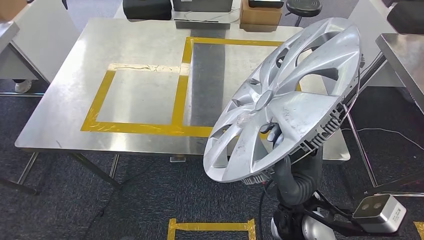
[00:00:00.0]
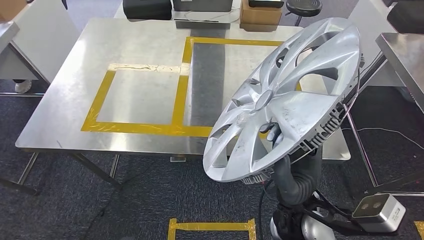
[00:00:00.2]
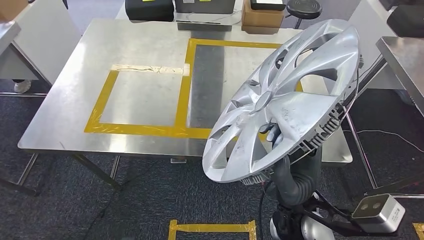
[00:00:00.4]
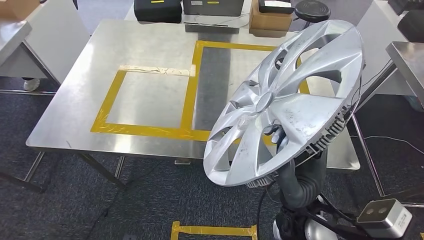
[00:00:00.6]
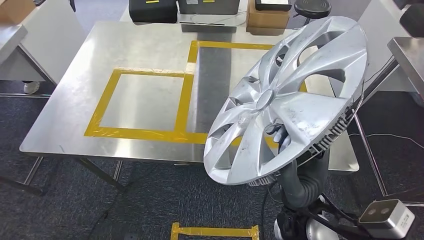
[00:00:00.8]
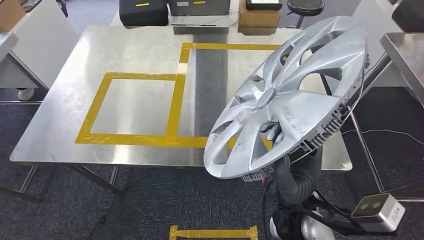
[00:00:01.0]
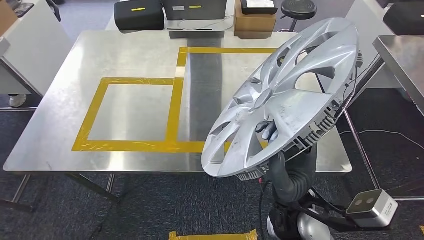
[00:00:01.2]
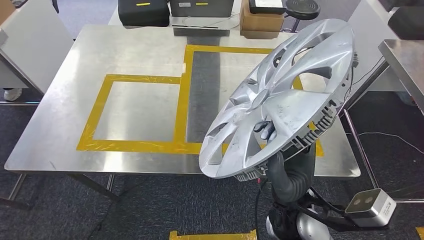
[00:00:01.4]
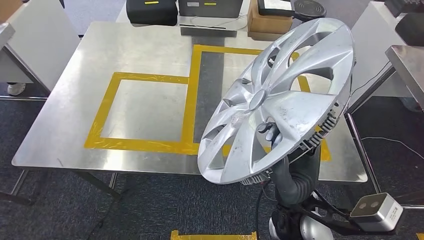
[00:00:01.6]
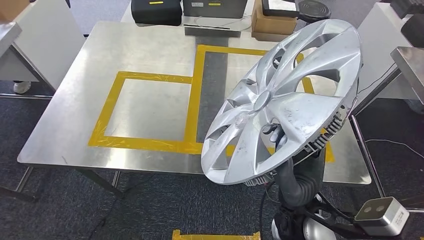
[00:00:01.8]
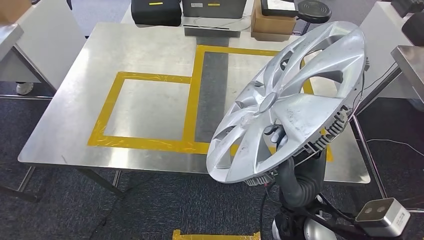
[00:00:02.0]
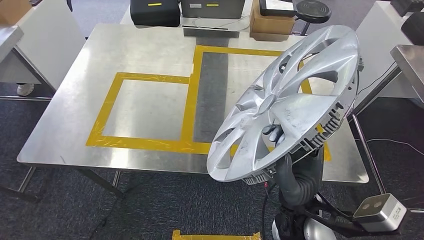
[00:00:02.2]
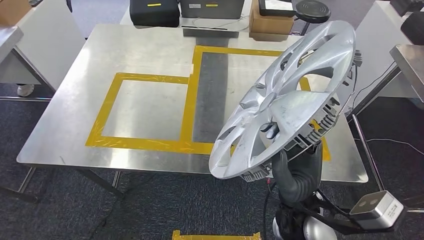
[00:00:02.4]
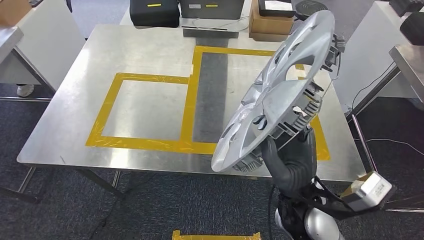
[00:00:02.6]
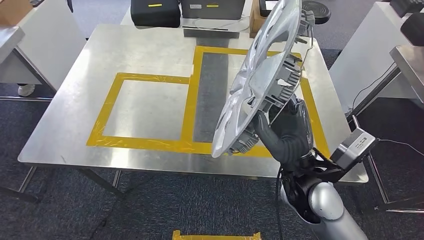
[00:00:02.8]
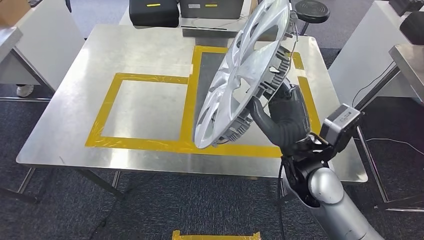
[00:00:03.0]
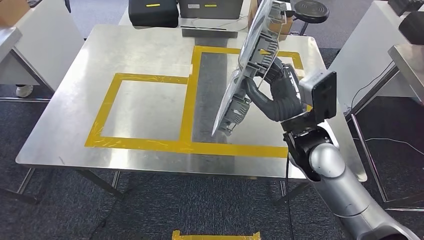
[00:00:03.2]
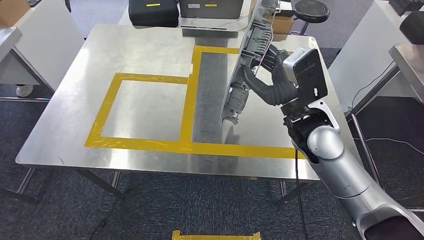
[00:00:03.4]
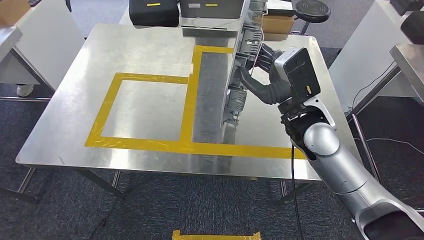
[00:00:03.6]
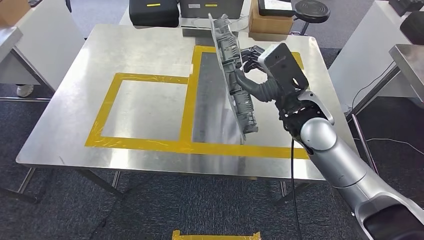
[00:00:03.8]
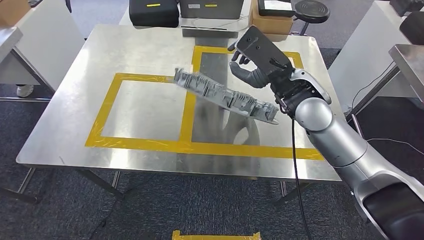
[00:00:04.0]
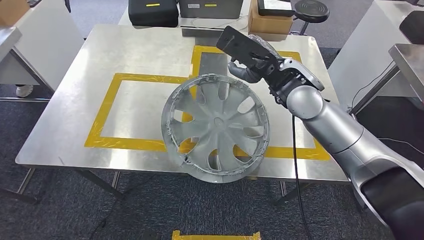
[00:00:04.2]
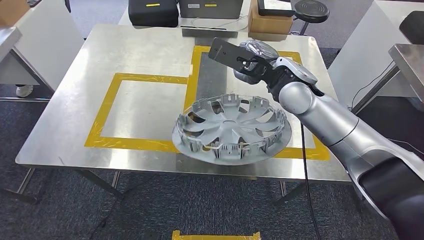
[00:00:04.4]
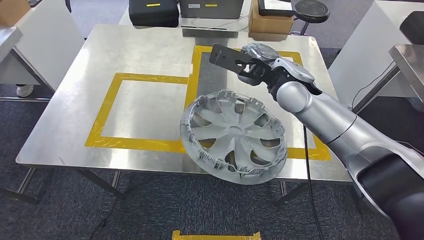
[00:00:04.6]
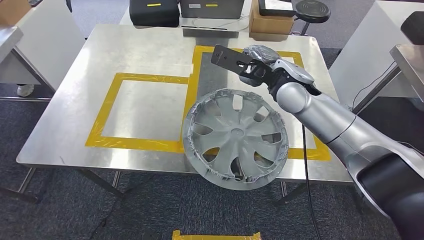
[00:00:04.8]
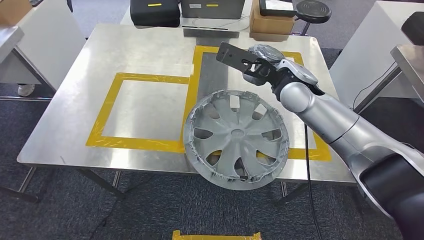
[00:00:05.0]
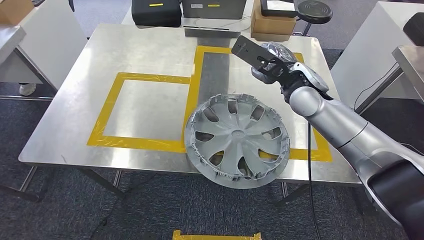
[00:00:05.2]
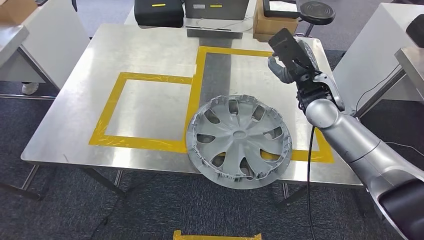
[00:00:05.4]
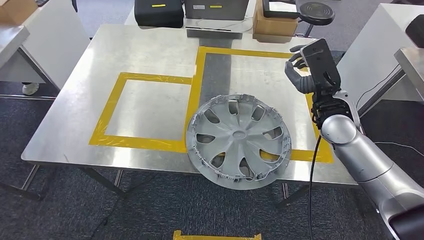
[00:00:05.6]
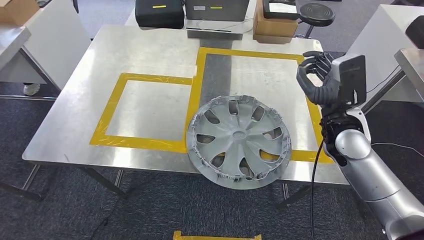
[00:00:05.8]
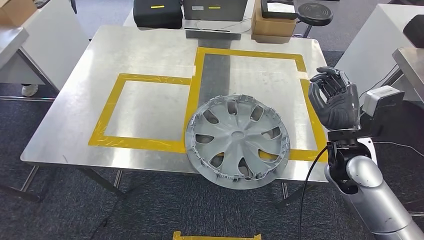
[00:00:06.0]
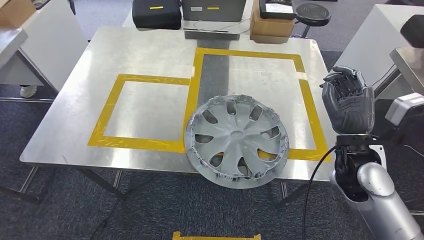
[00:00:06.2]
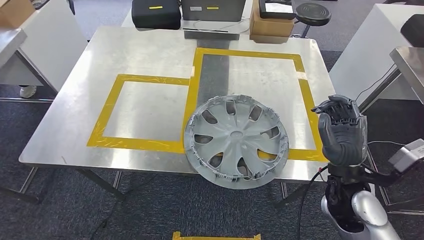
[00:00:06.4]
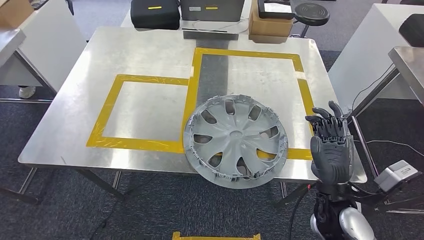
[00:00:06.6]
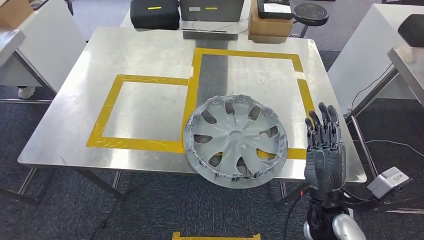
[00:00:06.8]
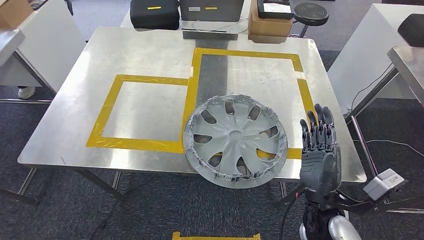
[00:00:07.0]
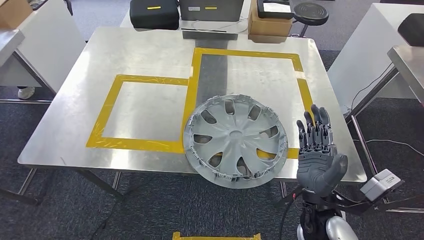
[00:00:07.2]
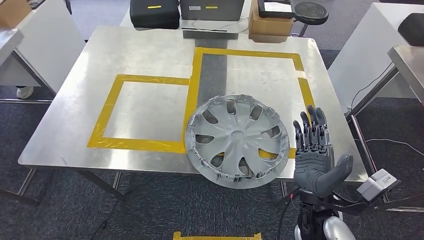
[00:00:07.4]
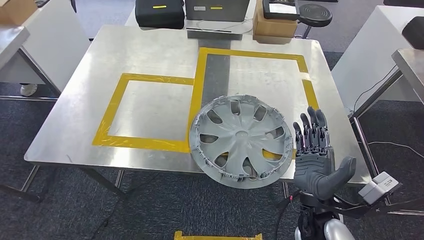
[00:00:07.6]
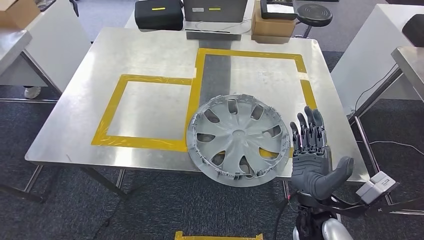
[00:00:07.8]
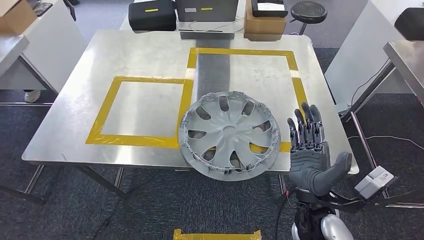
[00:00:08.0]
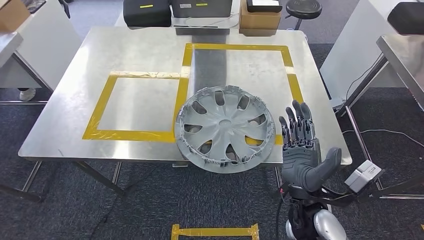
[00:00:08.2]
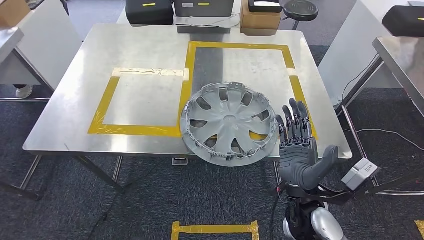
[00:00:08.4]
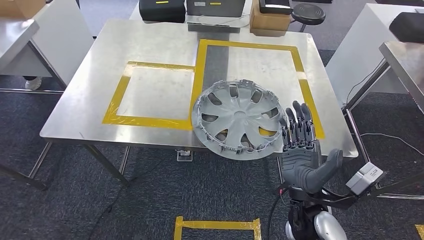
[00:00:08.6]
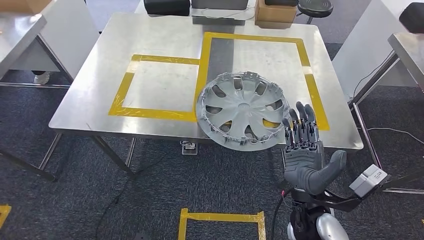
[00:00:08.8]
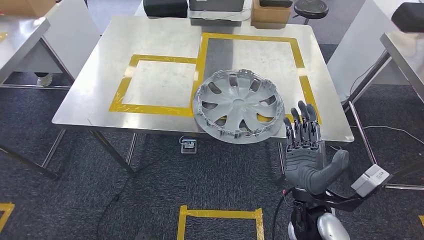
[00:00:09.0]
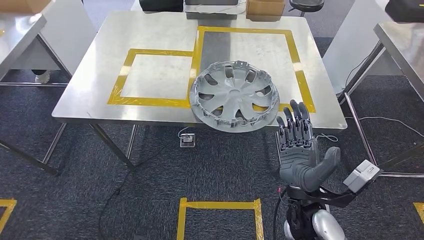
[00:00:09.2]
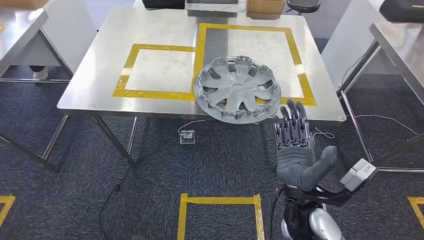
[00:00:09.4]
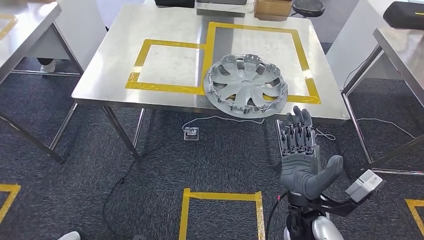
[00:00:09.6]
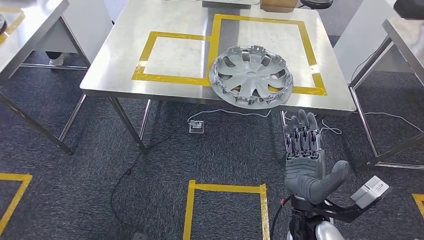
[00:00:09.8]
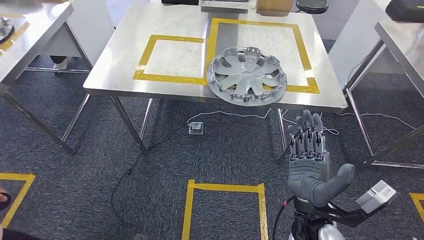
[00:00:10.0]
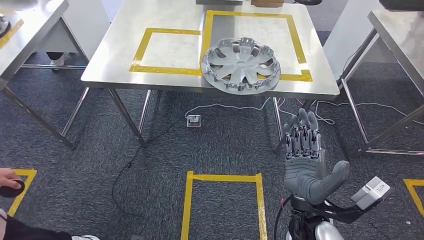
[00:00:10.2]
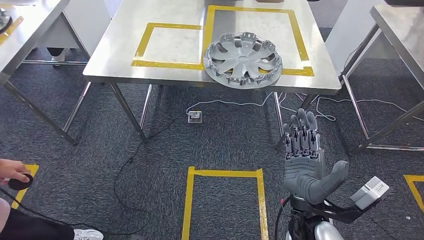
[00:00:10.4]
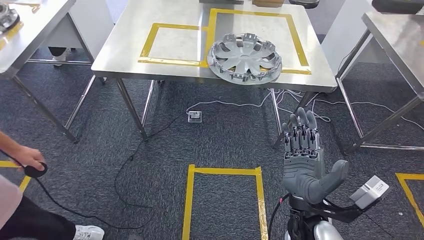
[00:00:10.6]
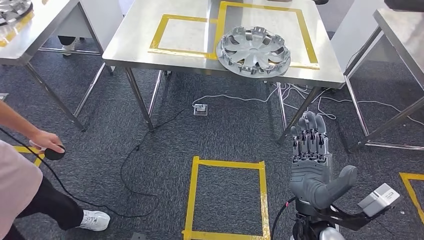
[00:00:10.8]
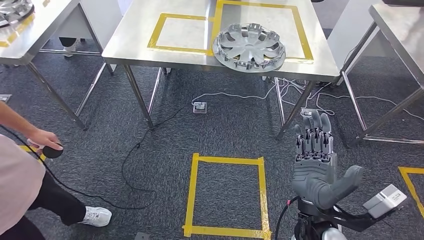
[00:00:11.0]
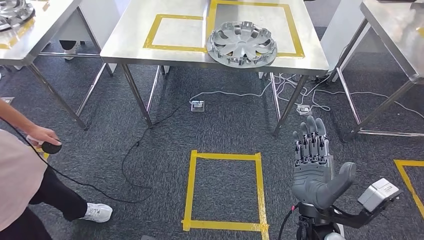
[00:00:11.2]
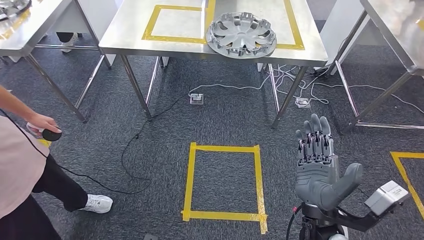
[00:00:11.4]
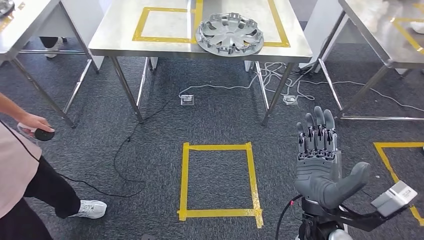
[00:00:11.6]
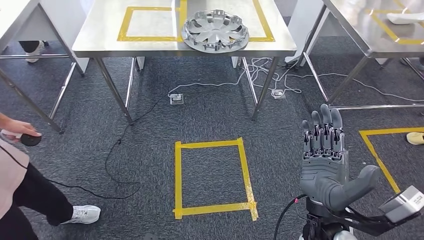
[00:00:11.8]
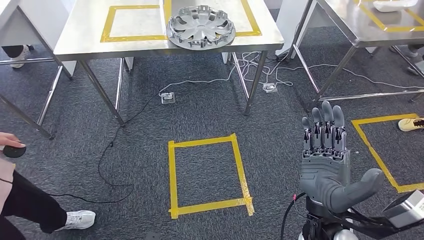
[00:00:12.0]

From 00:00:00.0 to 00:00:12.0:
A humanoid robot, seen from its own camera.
Step, from 00:00:00.0 to 00:00:06.8: Insert the small parts into the corresponding holes on the workbench.
From 00:00:06.0 to 00:00:07.6: The right hand is displaced backward, to the left and downward by some 15 cm.

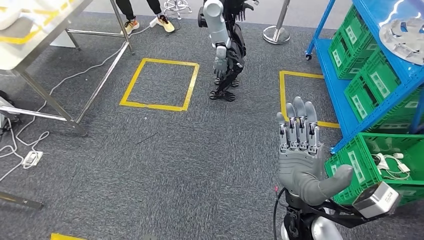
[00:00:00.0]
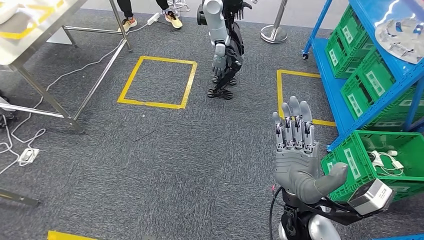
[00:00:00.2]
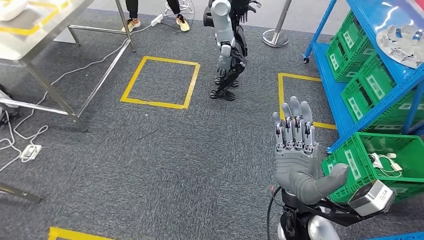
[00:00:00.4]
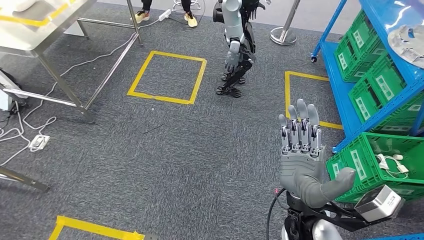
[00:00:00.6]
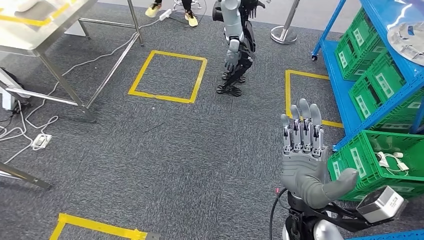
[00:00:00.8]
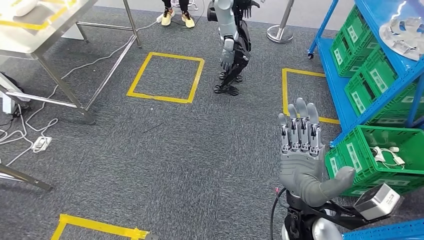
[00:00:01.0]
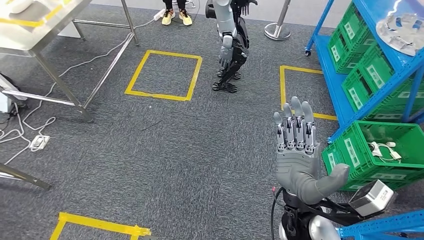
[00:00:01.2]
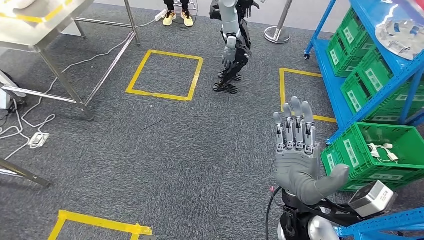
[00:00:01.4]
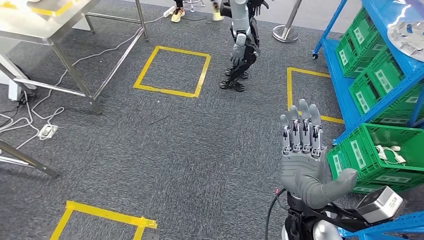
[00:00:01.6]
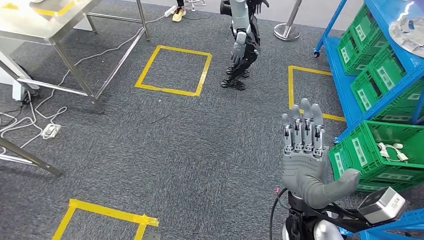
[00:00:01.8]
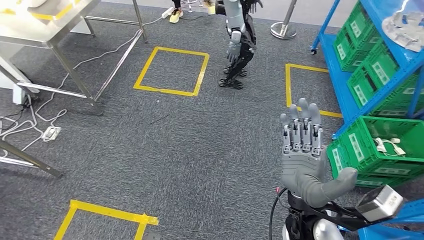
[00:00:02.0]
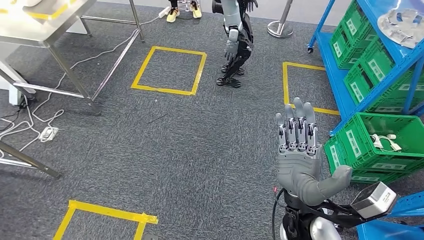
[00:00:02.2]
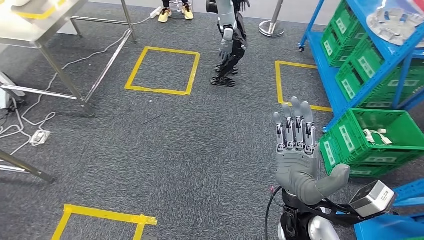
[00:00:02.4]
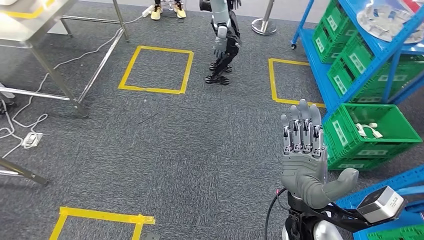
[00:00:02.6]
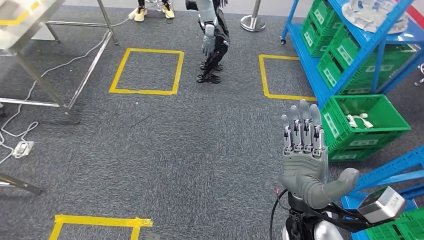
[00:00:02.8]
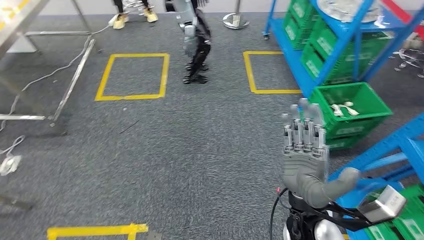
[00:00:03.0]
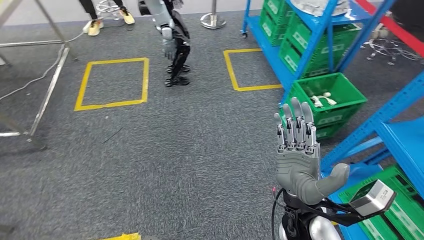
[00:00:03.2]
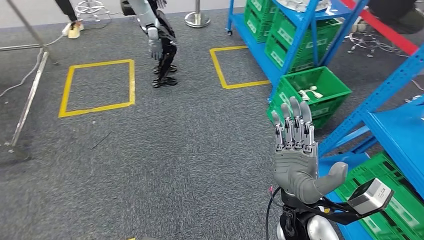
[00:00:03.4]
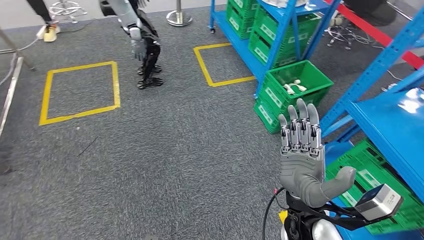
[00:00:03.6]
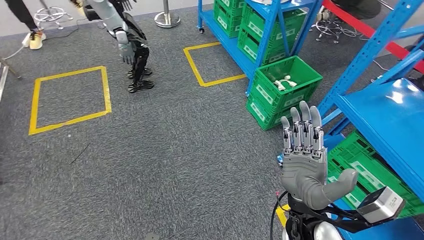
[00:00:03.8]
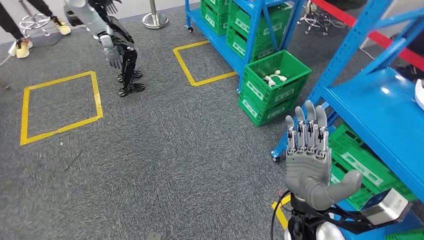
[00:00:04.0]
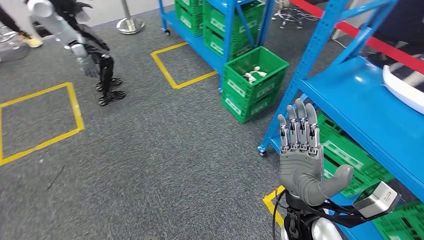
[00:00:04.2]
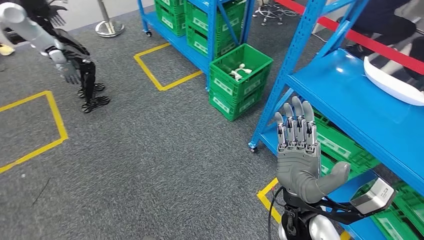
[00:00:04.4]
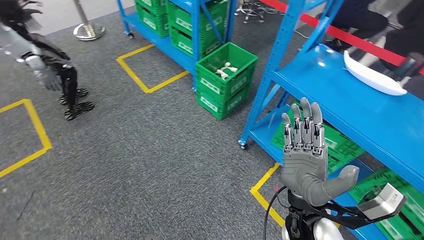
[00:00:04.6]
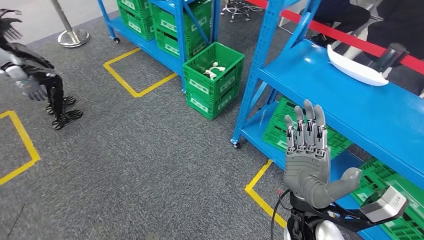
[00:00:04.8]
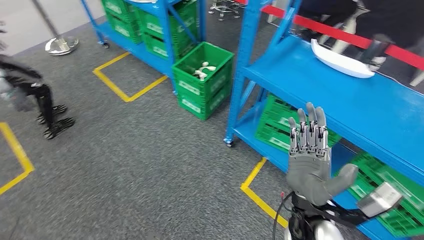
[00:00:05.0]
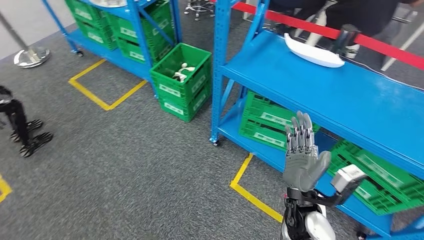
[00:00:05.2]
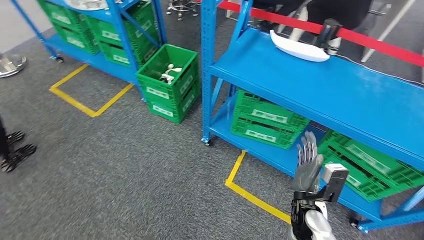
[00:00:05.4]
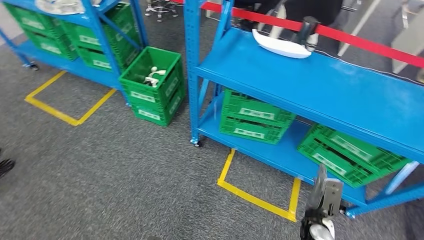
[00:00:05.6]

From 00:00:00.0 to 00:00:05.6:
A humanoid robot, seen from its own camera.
Step, from 00:00:00.0 to 00:00:05.6: Move to the initial position at the workbench.
